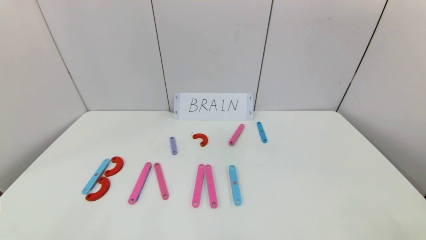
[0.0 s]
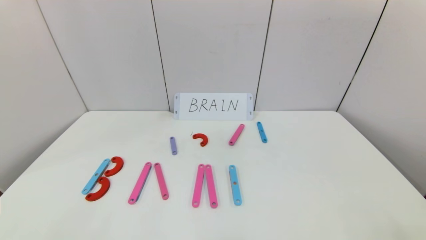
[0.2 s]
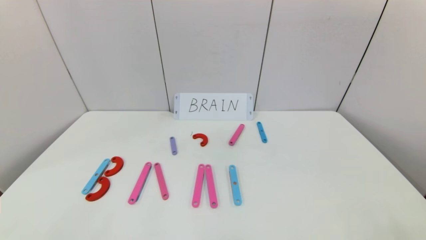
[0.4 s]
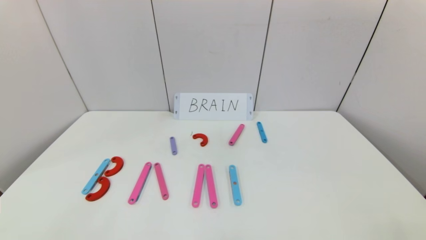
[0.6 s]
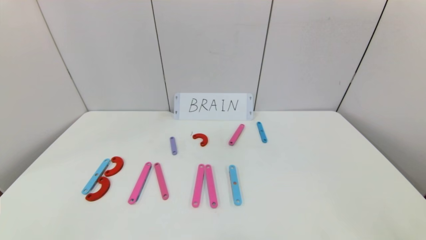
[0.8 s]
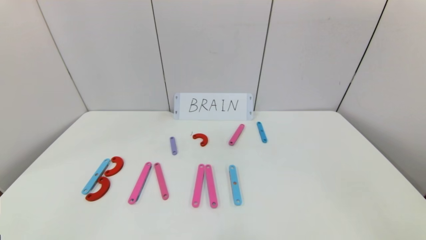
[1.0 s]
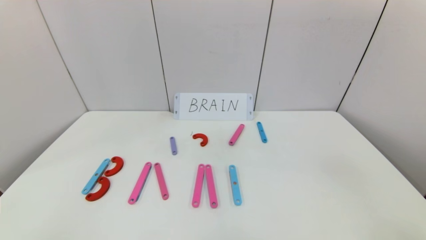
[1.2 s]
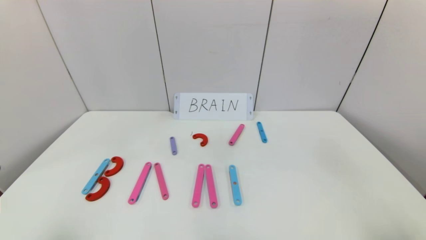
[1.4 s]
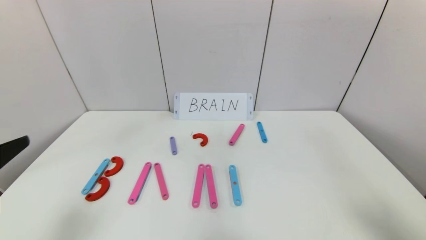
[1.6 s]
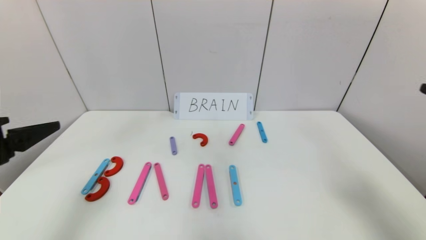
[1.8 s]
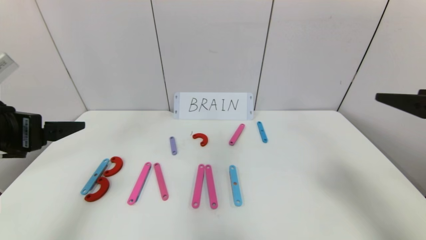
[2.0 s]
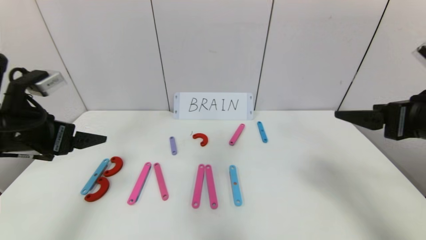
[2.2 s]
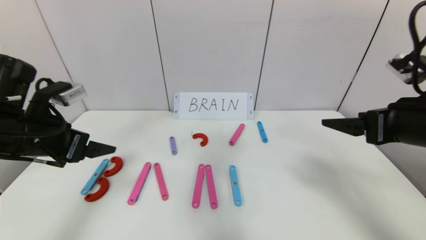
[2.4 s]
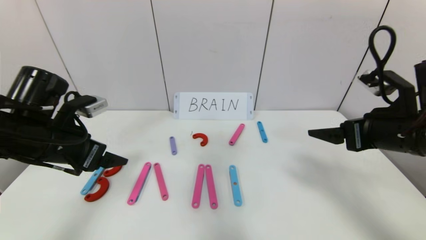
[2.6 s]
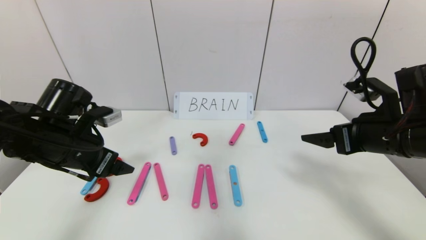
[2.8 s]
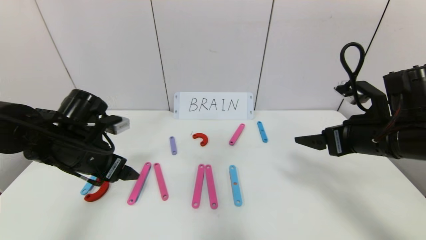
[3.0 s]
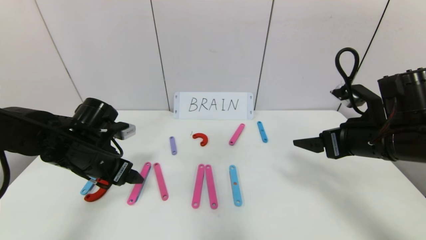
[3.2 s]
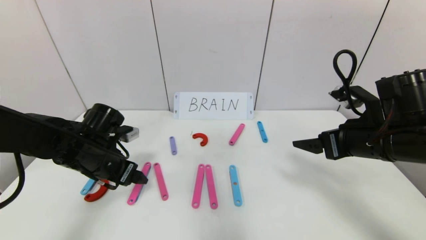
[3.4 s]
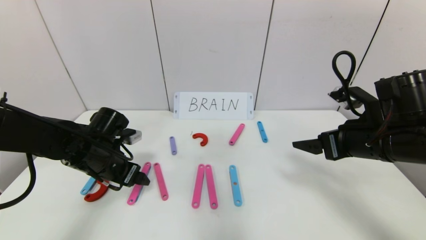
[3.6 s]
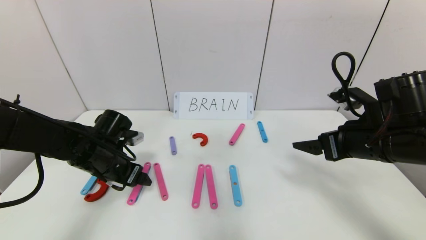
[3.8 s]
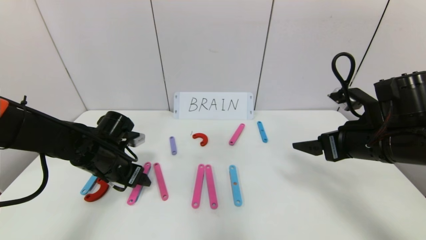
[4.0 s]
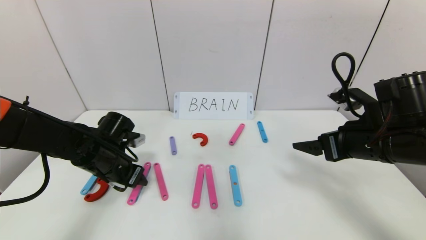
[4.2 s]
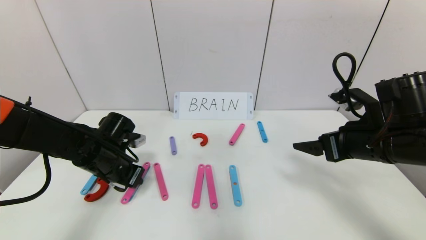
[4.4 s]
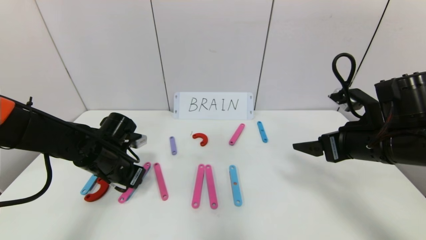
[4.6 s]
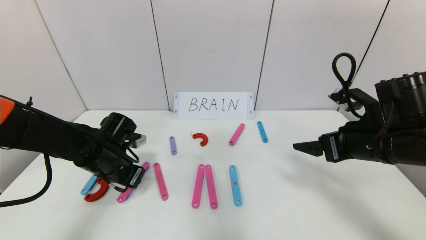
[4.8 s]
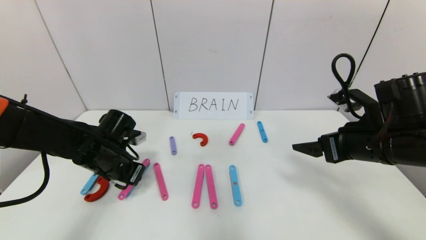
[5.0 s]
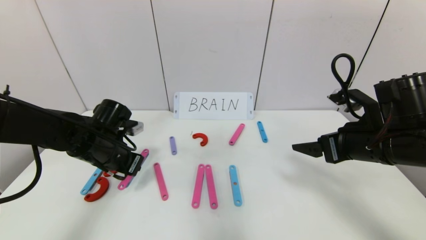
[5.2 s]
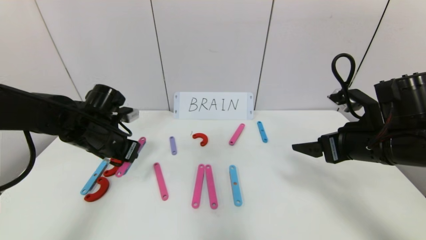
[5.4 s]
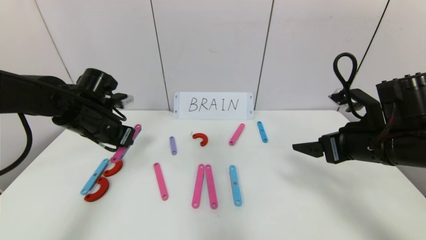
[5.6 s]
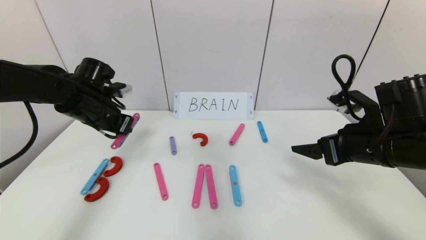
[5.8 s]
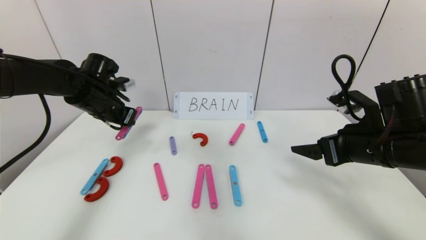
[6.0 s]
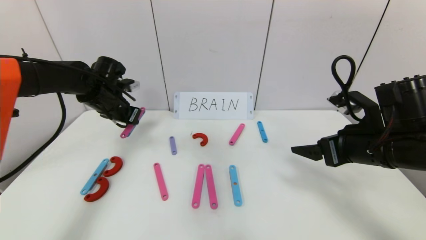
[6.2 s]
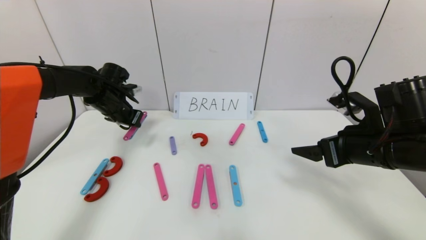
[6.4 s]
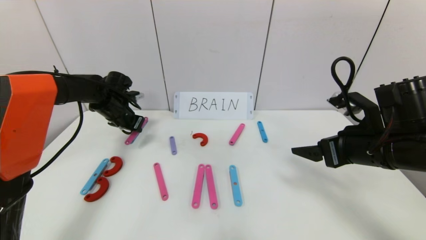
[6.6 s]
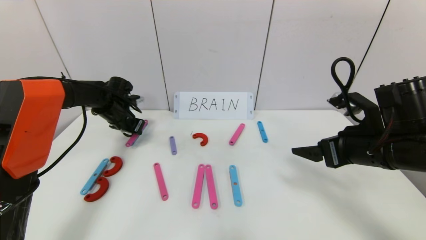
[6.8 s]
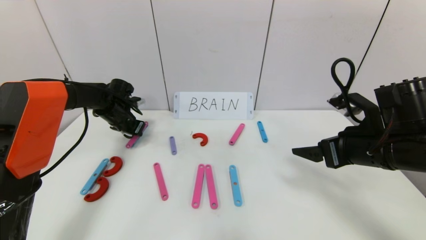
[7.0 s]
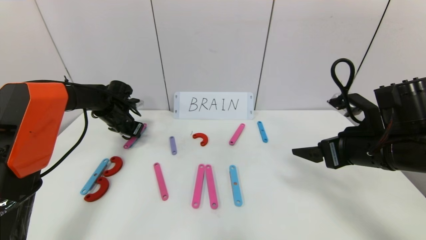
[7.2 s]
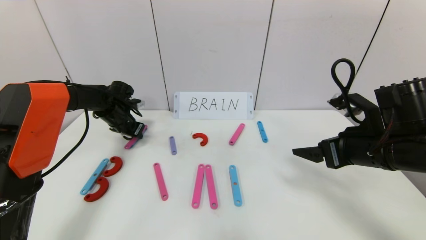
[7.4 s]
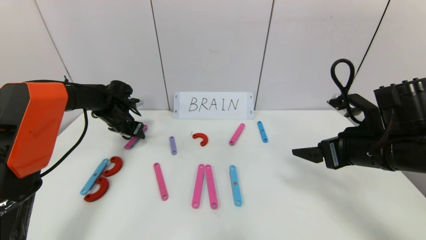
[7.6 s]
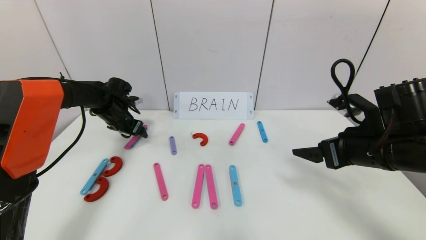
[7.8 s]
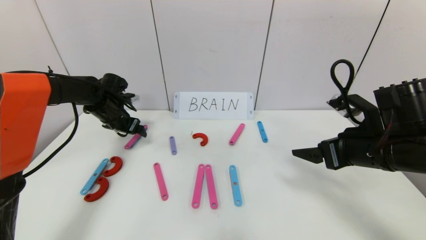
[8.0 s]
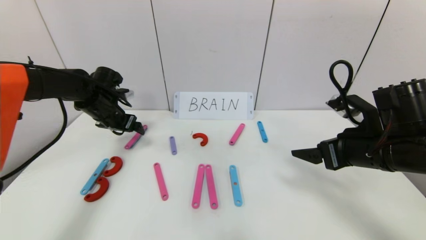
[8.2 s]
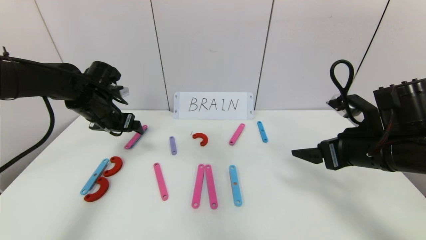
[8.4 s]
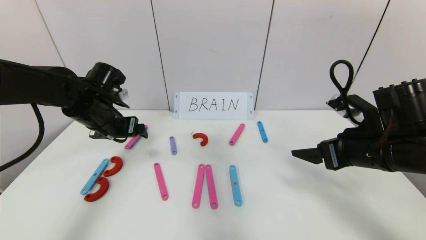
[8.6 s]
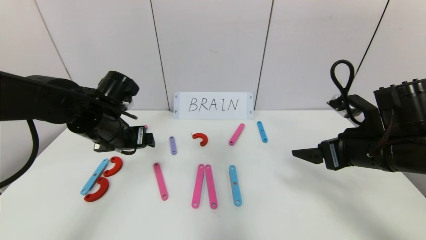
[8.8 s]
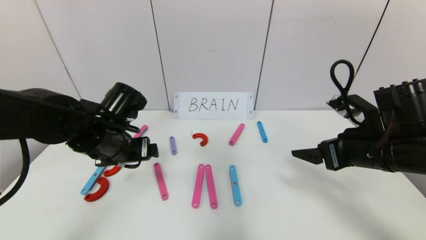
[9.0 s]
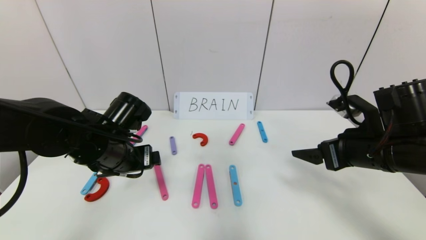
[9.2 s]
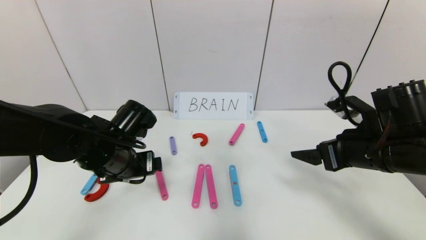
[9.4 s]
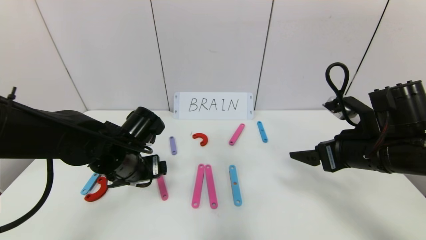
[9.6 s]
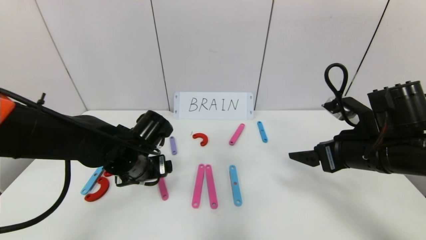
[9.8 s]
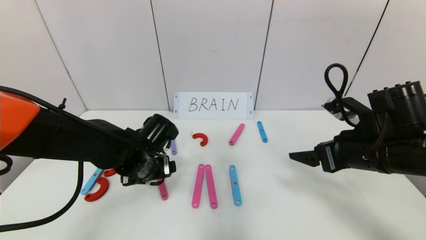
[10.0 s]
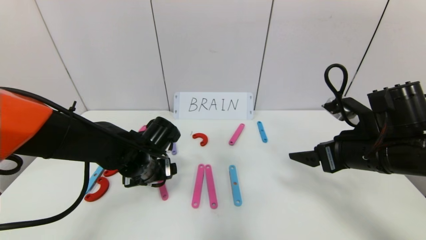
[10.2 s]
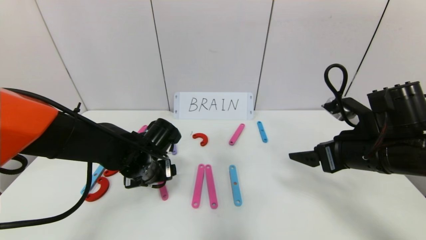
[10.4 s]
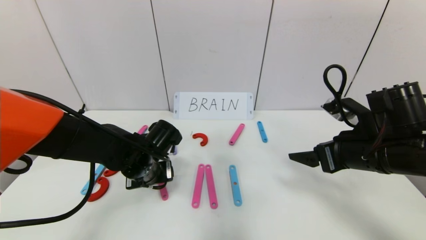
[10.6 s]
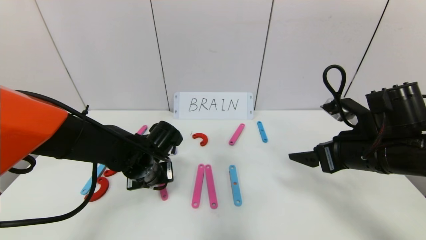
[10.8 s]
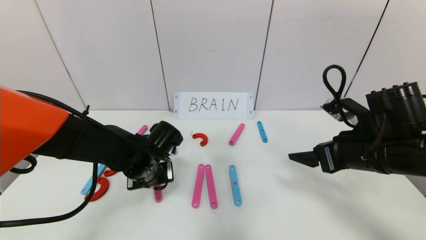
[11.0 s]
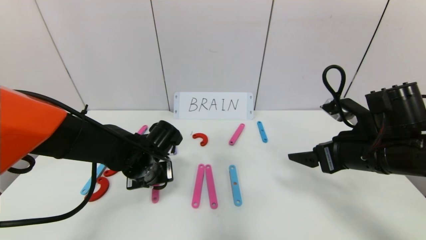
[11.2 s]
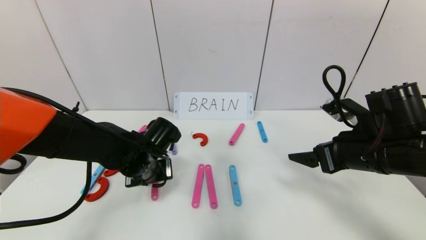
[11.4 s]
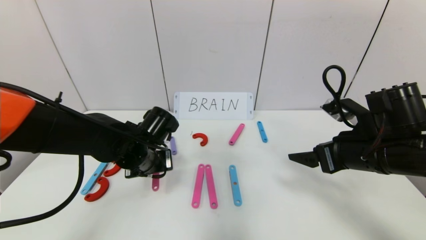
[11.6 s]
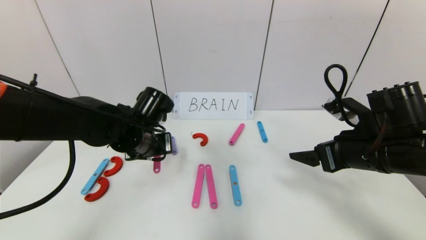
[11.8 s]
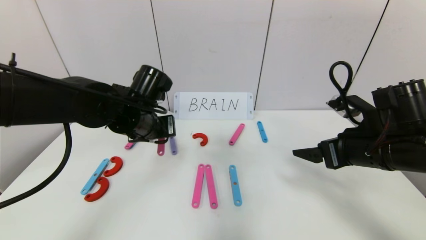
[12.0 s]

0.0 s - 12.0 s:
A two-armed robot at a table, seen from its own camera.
Task of the whole recording: rearrange the word baai as brain.
0.0 s - 1.6 s: The two grippers go some 25 cm upward and forward.
1.6 s - 3.0 s: The left gripper heads forward and downward, covering about 20 cm. Meanwhile the right gripper shifts some 20 cm forward, downward and to the left.
3.0 s - 4.4 s: The left gripper travels downward by some 5 cm, and closes its fingers.
4.4 s - 6.0 s: The left gripper goes some 15 cm upward and forward.
6.0 s - 7.6 s: The left gripper moves downward and forward, some 10 cm, and opens.
7.6 s - 9.0 s: The left gripper shifts roughly 20 cm backward and to the right, and opens its fingers.
9.0 s - 10.4 s: The left gripper is displaced downward by approximately 10 cm.
10.4 s - 12.0 s: The left gripper moves upward, roughly 10 cm, and closes up.

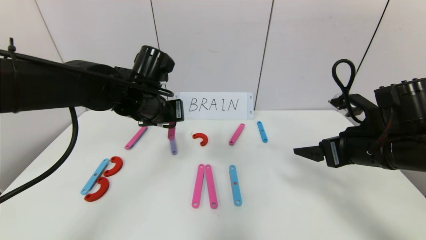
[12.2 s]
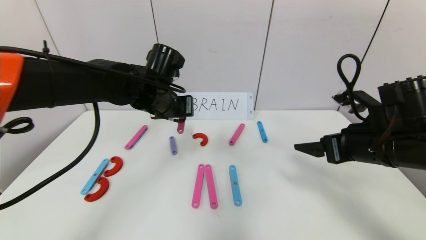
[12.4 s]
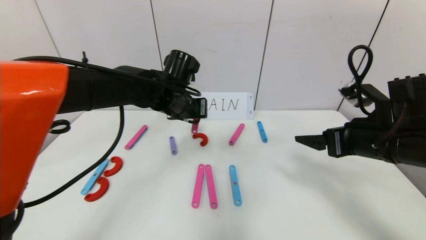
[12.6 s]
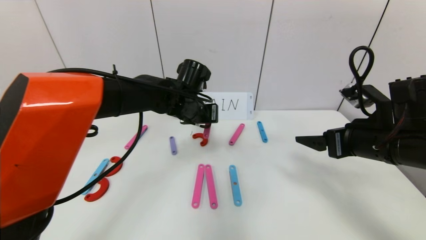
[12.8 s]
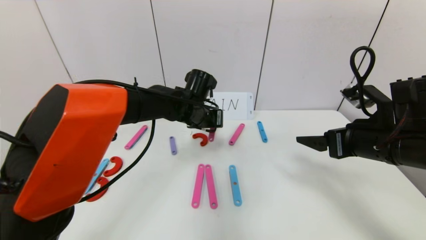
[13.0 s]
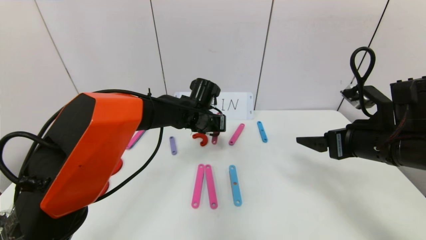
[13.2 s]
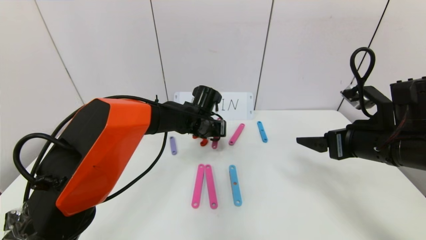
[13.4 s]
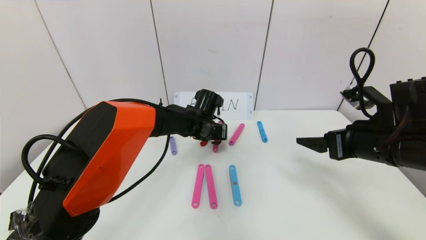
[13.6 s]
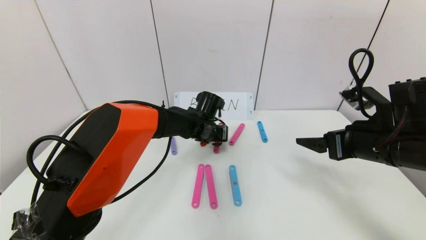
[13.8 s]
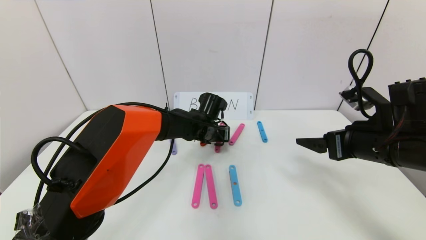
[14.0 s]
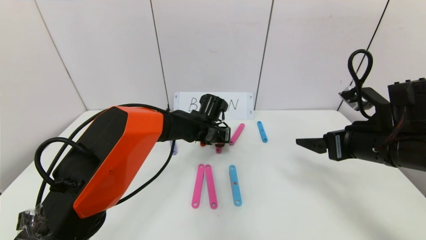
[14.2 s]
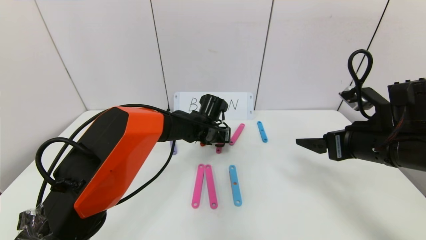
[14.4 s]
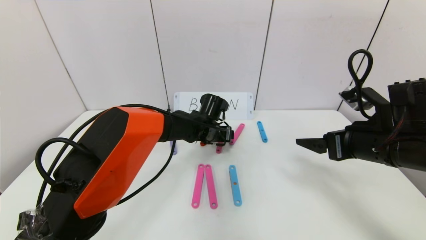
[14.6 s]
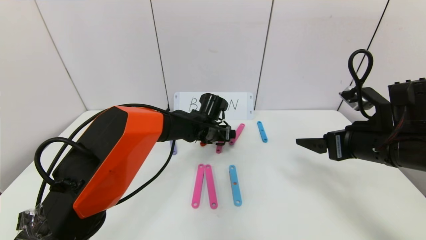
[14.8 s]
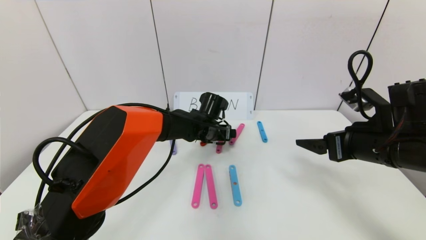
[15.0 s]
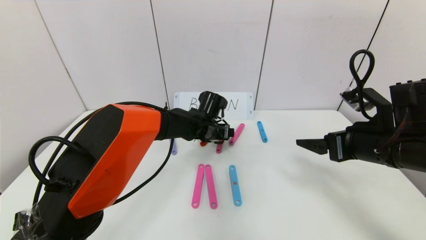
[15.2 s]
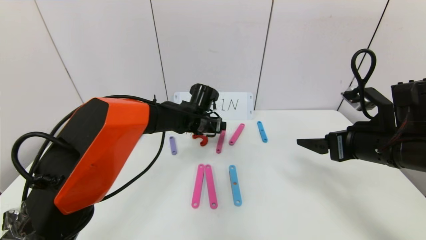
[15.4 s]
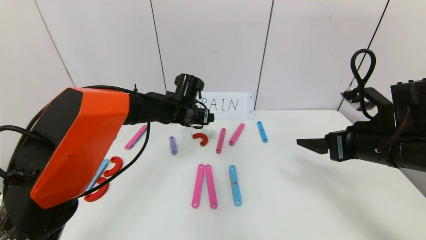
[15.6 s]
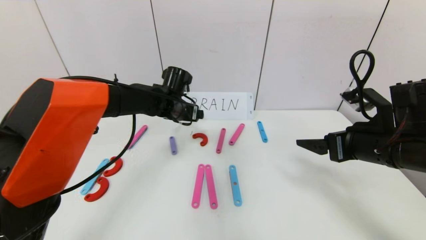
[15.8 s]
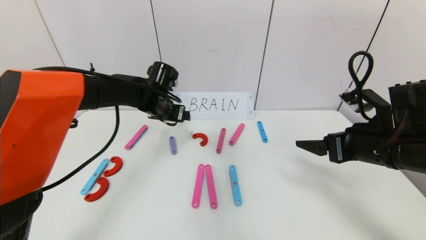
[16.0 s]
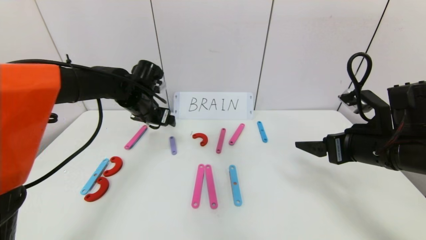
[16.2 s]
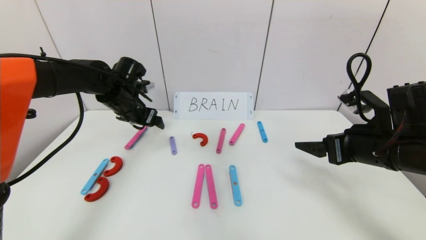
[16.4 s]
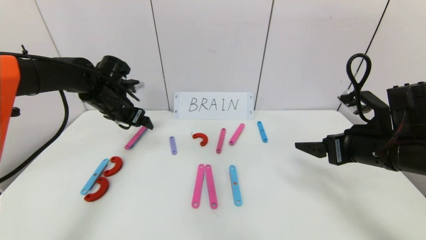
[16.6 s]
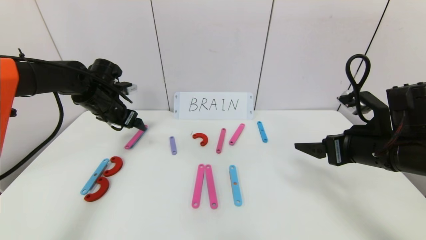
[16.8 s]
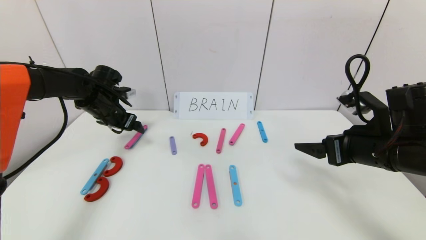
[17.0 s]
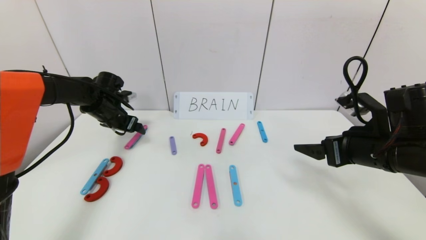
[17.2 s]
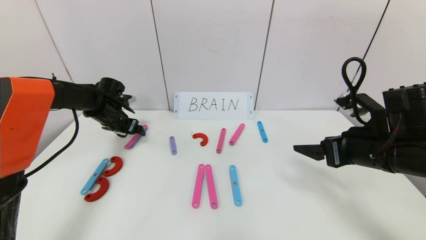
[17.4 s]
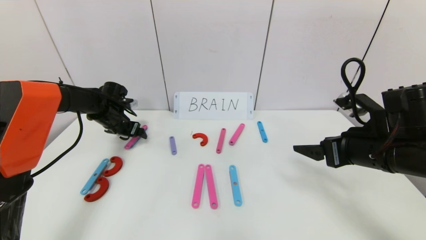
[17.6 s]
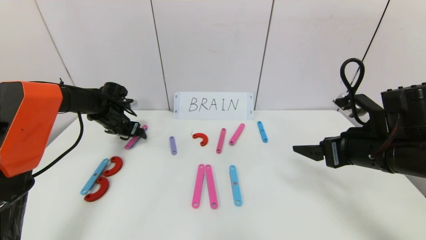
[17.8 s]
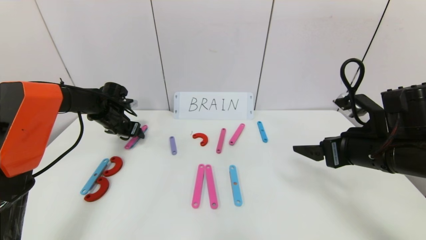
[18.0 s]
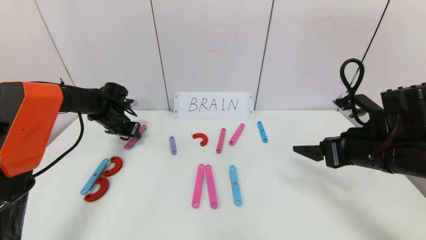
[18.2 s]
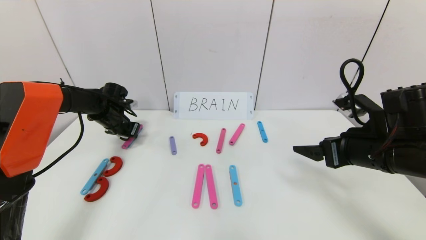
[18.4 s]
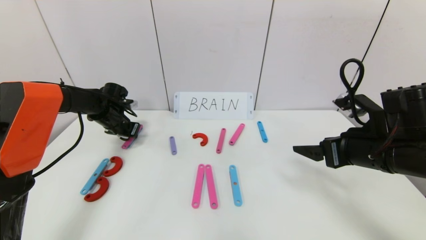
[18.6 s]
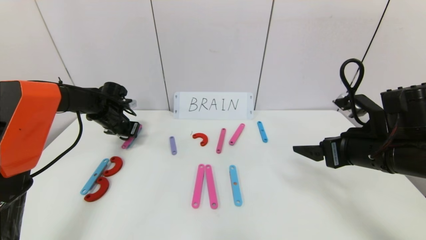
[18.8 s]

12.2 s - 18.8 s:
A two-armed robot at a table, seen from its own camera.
Task of the whole recording: rearrange the word baai as brain.
Step, 12.2 s - 14.2 s: Disassemble the second character A.
12.2 s - 13.8 s: The left gripper heads downward, to the right and forward, covering approximately 20 cm.
13.8 s - 15.4 s: The left gripper opens its fingers.
15.4 s - 17.2 s: The left gripper shifts some 25 cm to the left.
17.2 s - 18.8 s: The left gripper closes.
